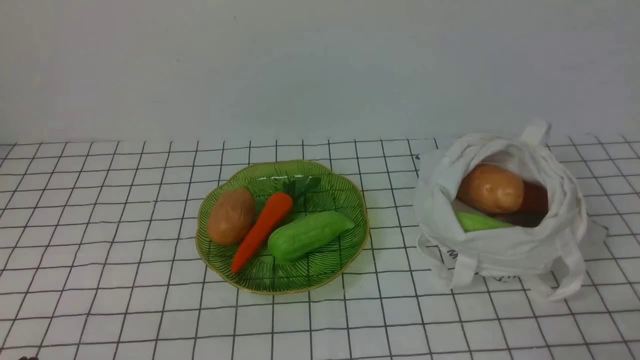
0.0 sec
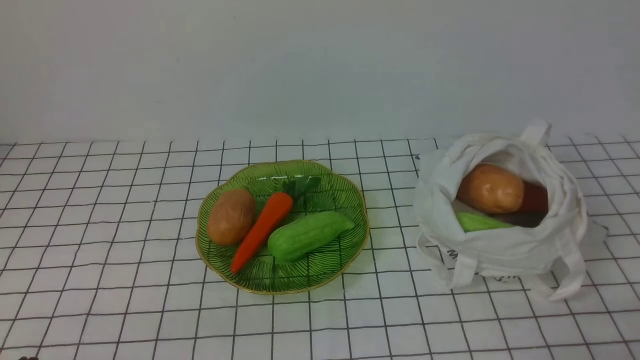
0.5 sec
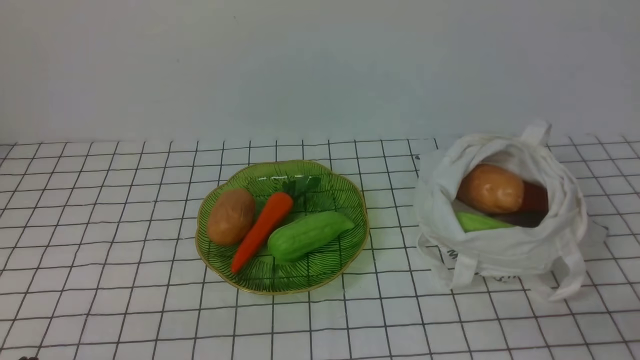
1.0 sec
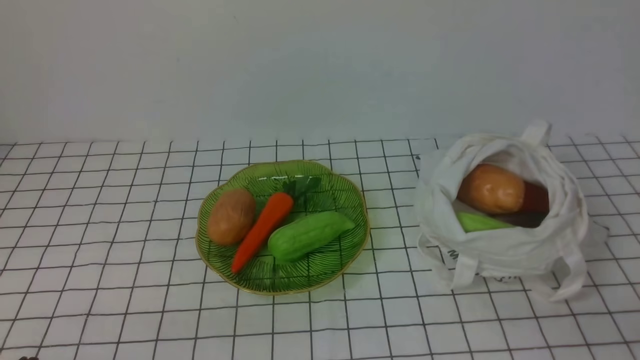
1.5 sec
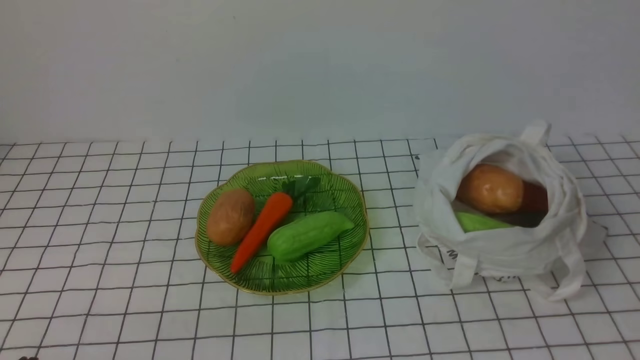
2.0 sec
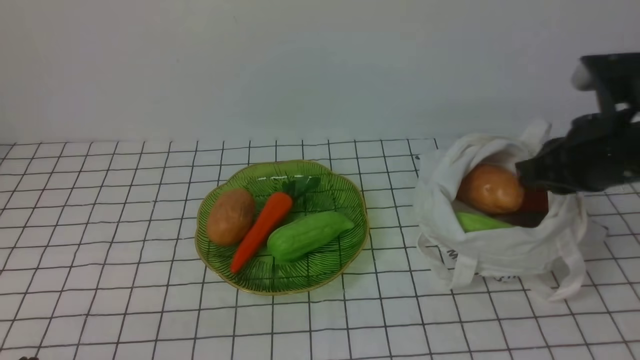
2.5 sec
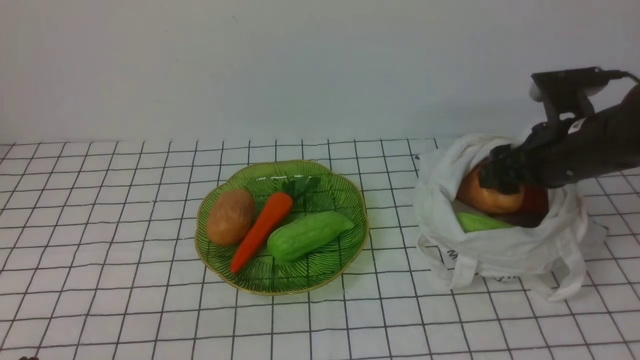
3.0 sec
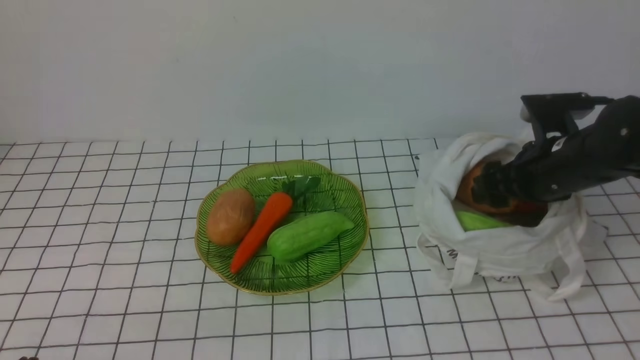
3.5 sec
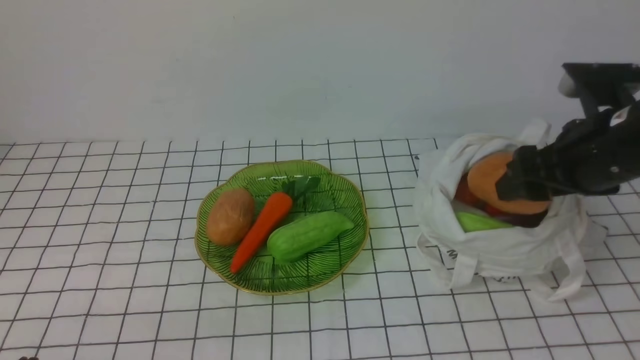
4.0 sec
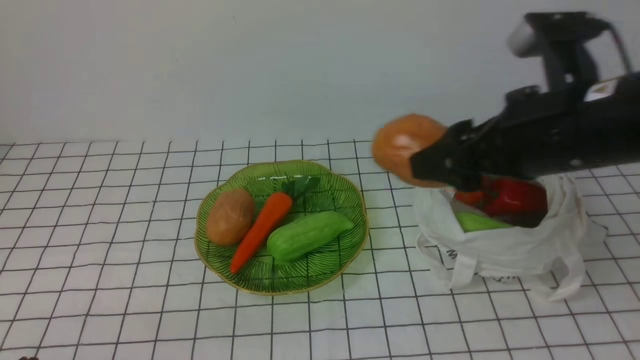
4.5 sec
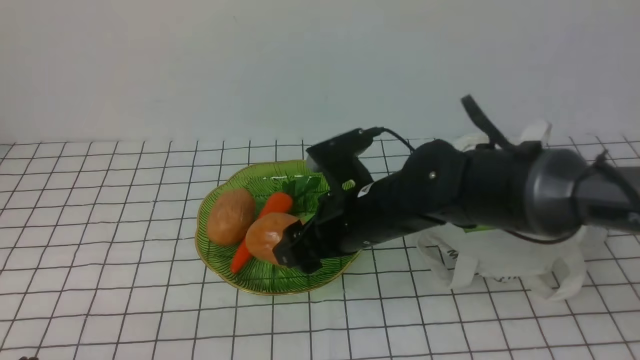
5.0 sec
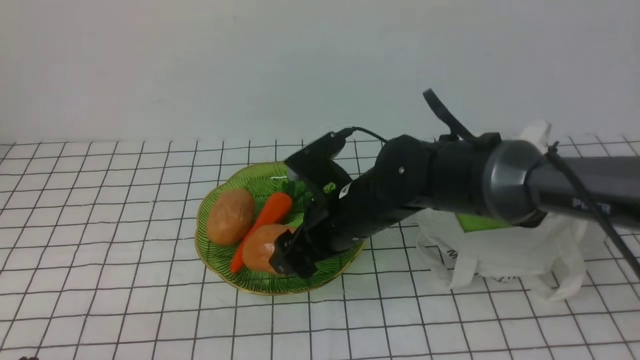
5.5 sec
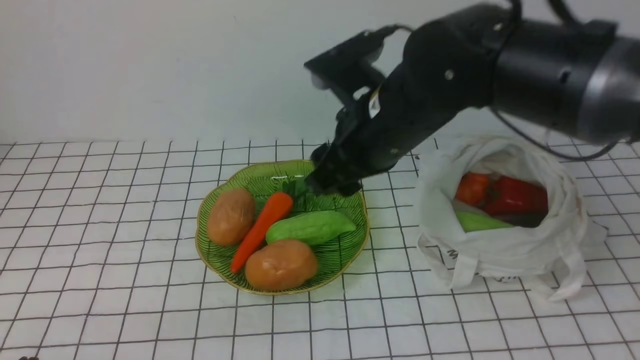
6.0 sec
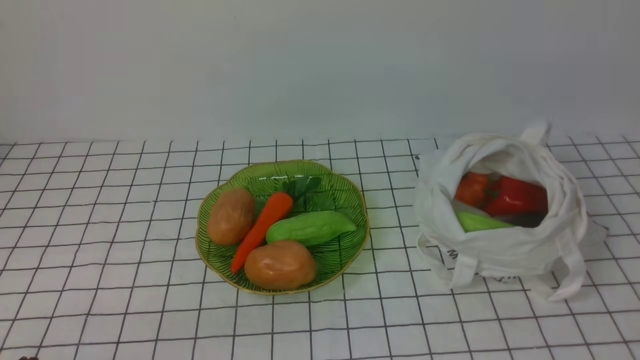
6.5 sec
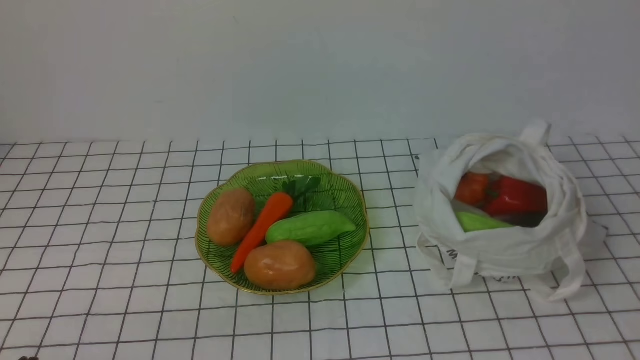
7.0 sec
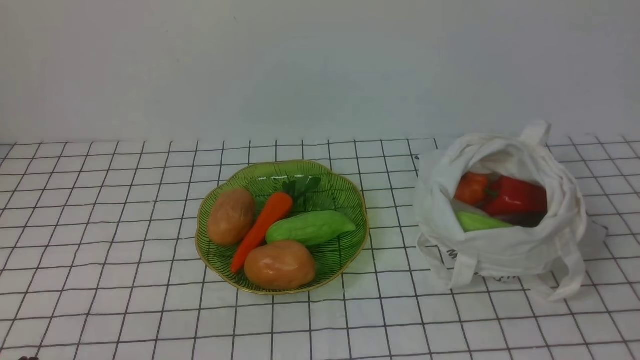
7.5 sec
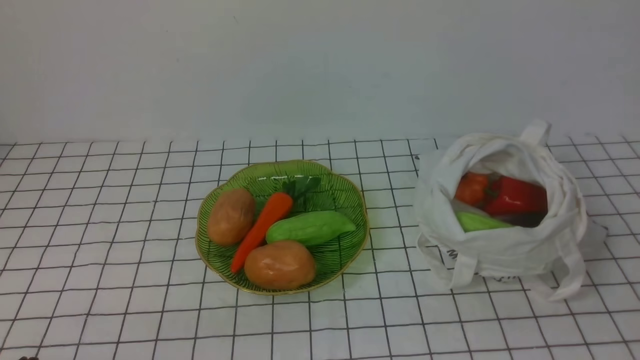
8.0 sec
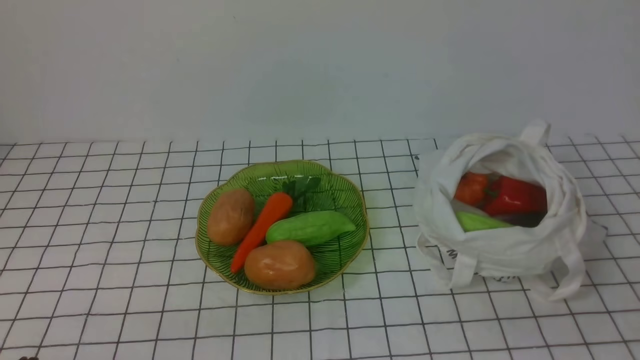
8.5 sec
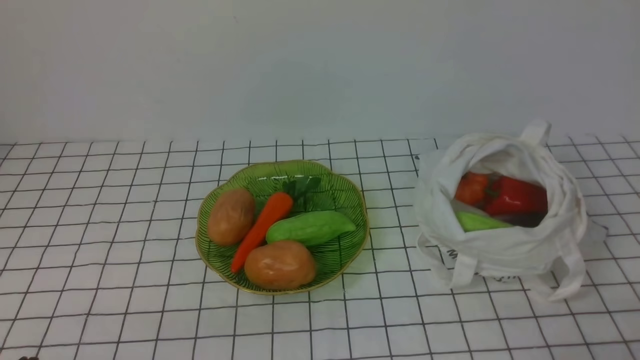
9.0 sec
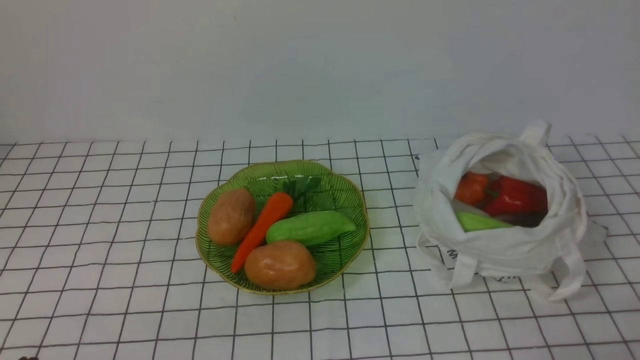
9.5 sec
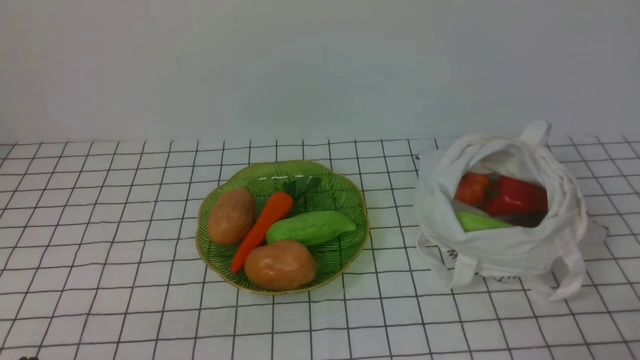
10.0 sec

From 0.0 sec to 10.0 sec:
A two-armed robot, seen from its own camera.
Task of the whole recording: take vegetables from bag on white checkered tablecloth place on plate.
Step, from 0.0 sec to 3.5 sec: Grasp the potato with right gripper.
Step, from 4.0 sec to 5.5 sec: Place the potato on the plate with right gripper.
From 2.0 sec to 4.0 sec: The right gripper moves forward, approximately 15 cm, and opens up.
From 4.0 sec to 6.0 sec: The right gripper travels to the left by about 20 cm.
From 6.0 sec to 8.0 sec: The right gripper is displaced backward and to the right by about 35 cm, and closes its fingers.
